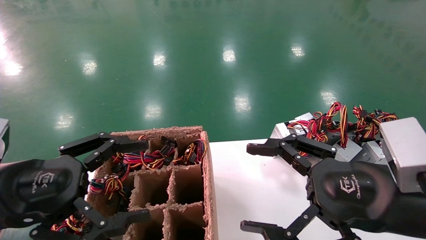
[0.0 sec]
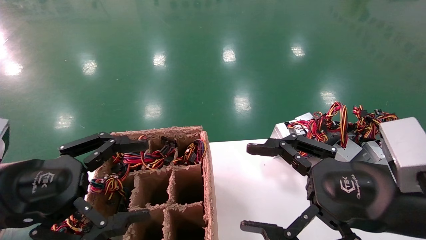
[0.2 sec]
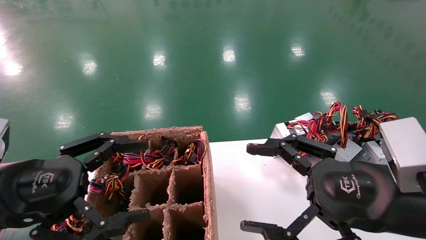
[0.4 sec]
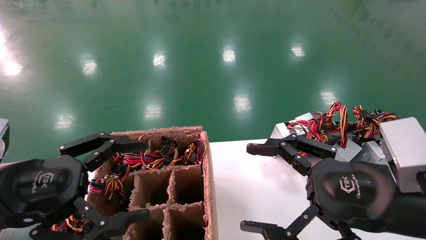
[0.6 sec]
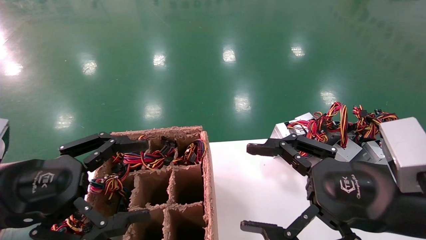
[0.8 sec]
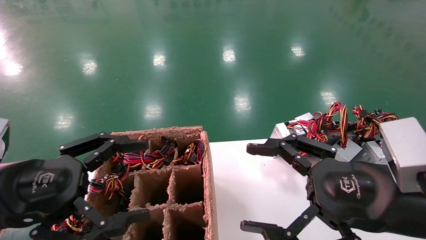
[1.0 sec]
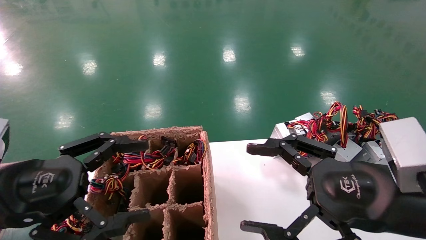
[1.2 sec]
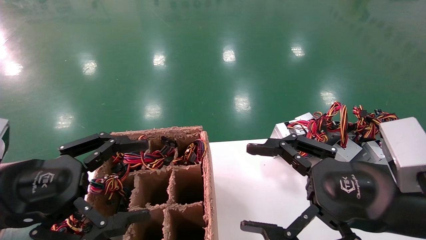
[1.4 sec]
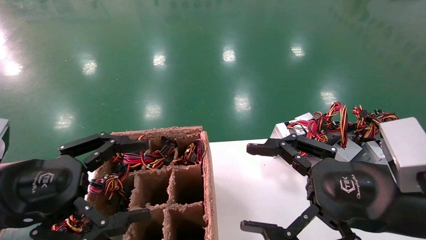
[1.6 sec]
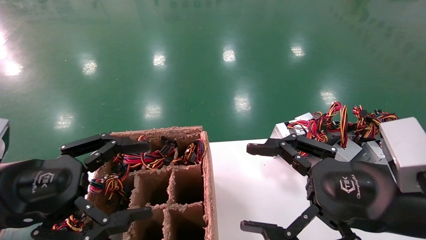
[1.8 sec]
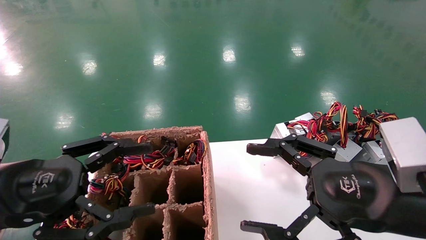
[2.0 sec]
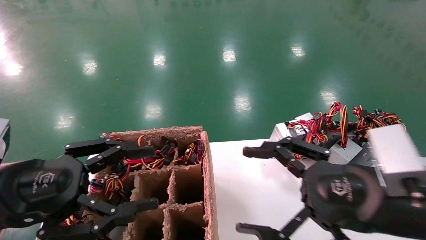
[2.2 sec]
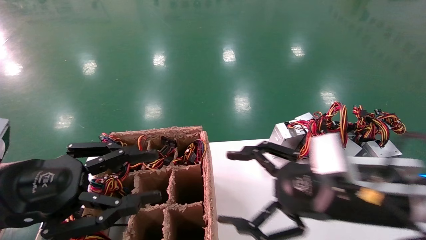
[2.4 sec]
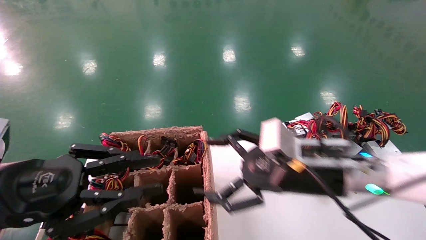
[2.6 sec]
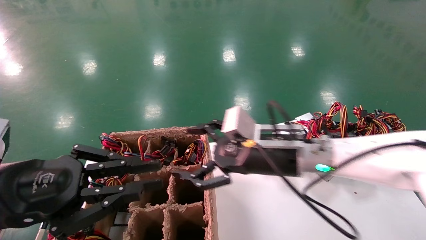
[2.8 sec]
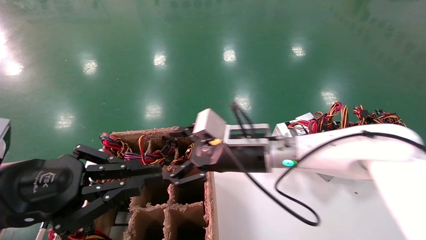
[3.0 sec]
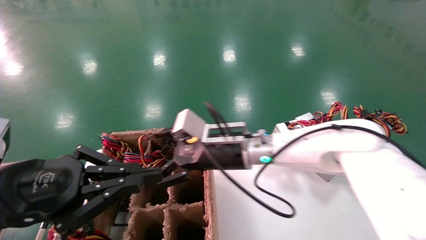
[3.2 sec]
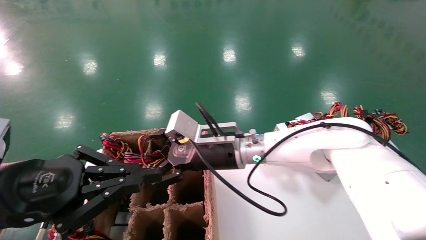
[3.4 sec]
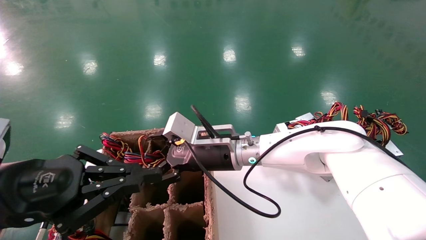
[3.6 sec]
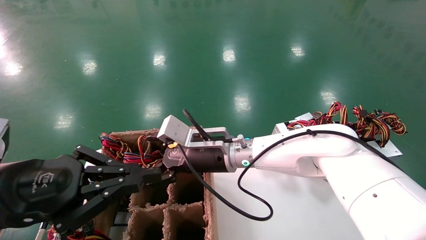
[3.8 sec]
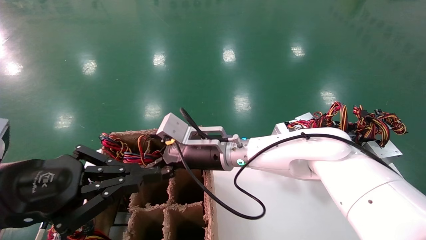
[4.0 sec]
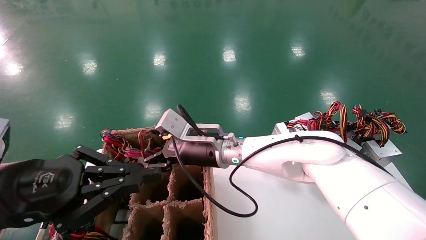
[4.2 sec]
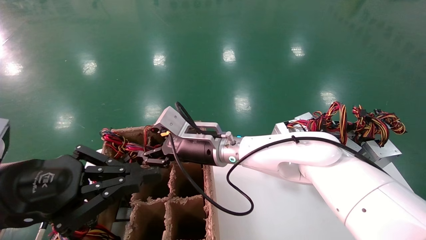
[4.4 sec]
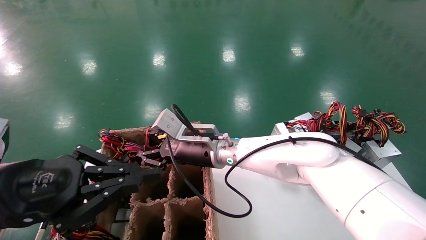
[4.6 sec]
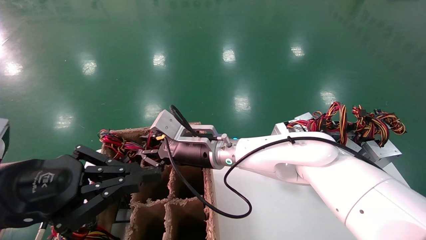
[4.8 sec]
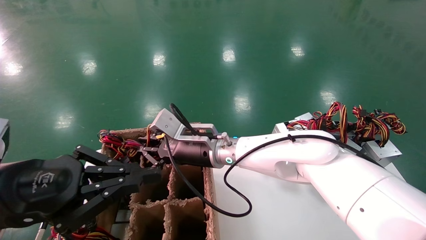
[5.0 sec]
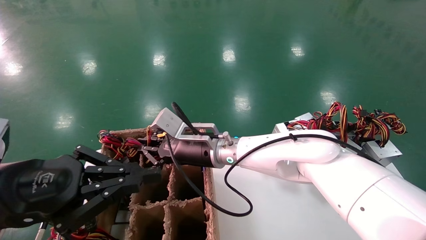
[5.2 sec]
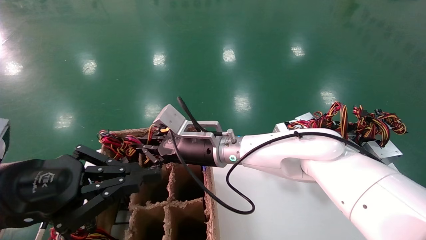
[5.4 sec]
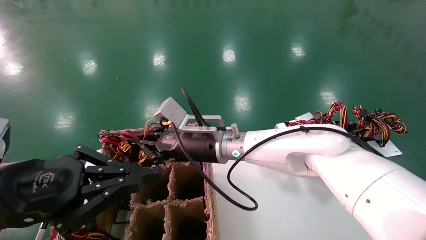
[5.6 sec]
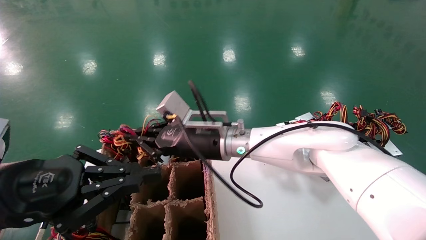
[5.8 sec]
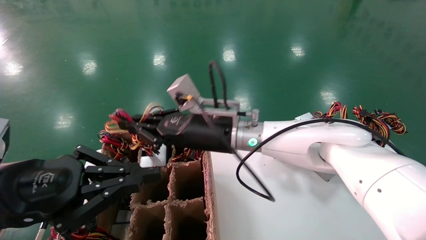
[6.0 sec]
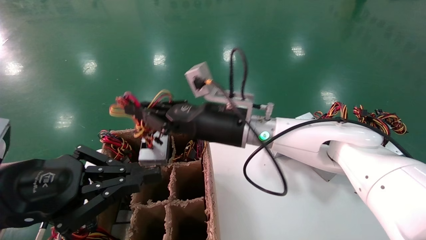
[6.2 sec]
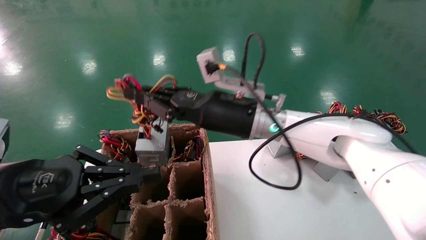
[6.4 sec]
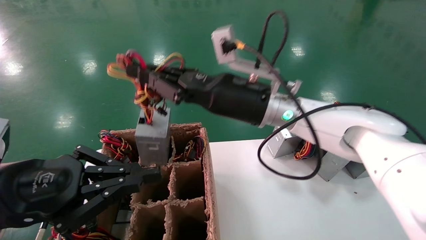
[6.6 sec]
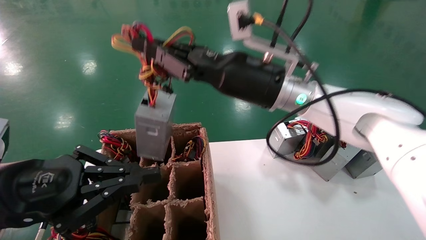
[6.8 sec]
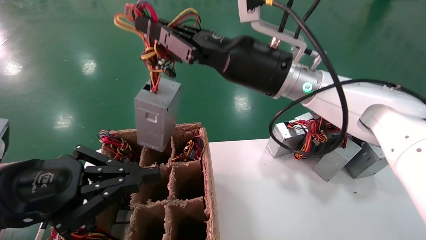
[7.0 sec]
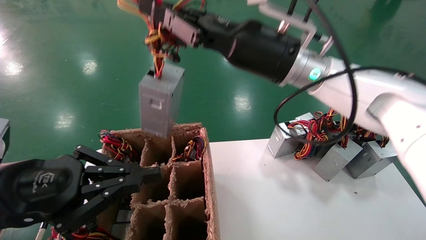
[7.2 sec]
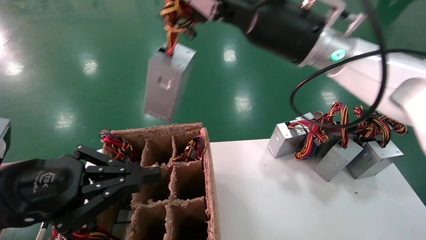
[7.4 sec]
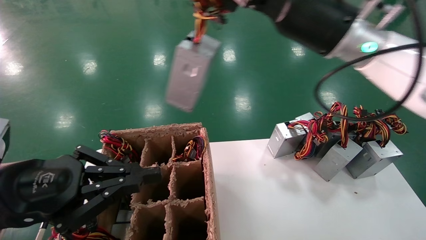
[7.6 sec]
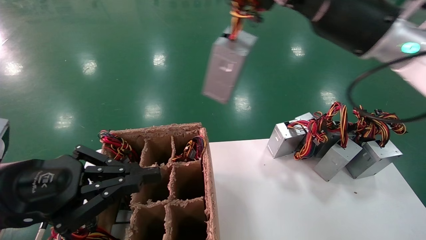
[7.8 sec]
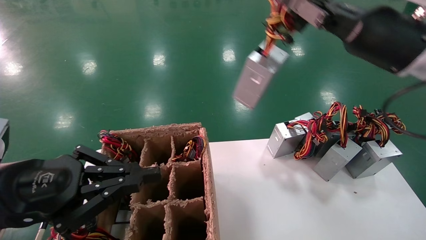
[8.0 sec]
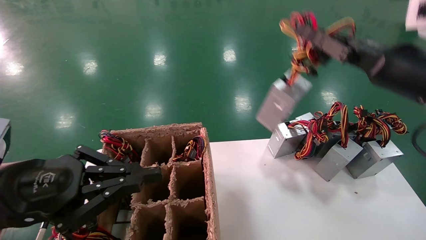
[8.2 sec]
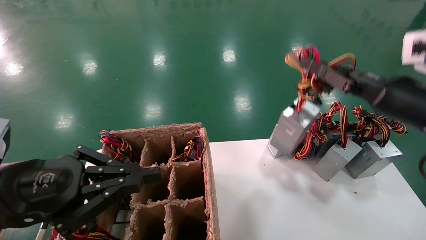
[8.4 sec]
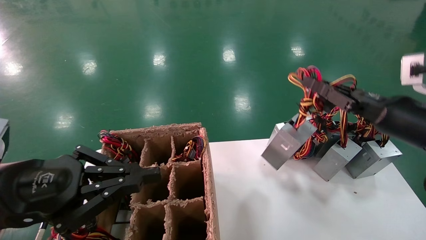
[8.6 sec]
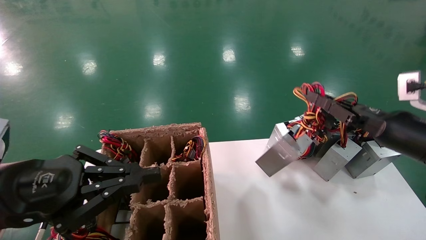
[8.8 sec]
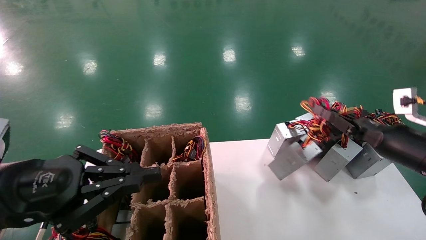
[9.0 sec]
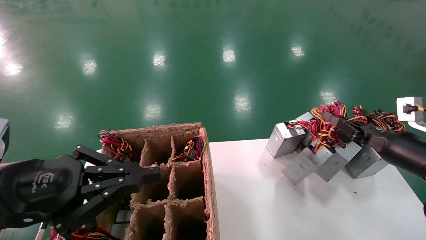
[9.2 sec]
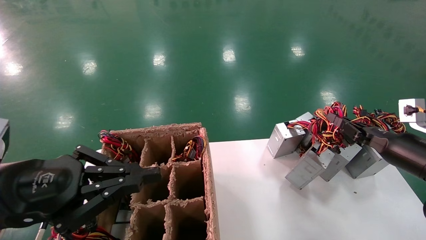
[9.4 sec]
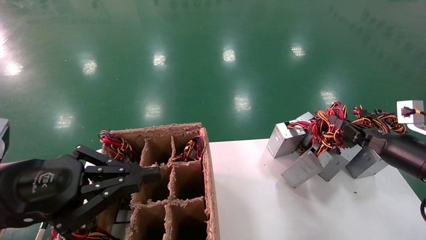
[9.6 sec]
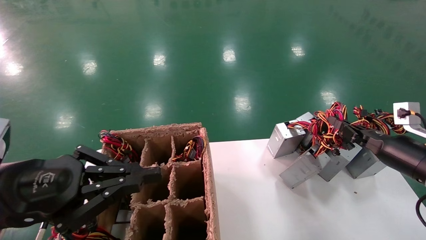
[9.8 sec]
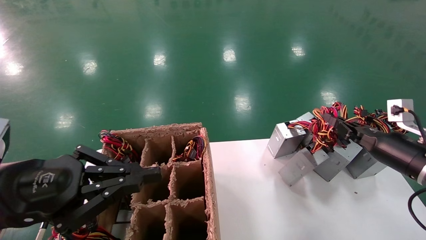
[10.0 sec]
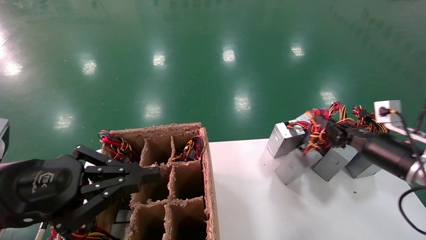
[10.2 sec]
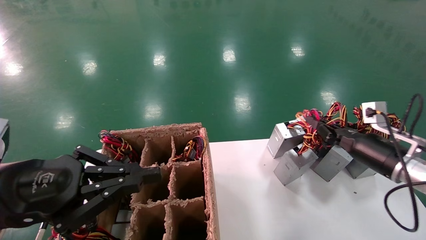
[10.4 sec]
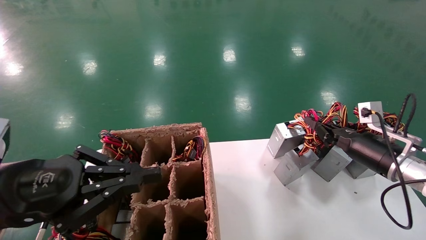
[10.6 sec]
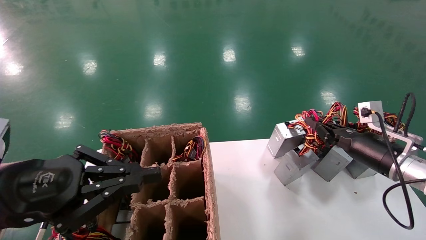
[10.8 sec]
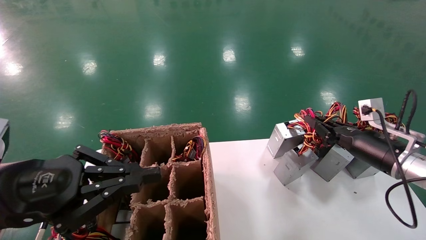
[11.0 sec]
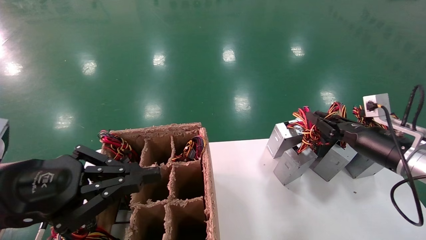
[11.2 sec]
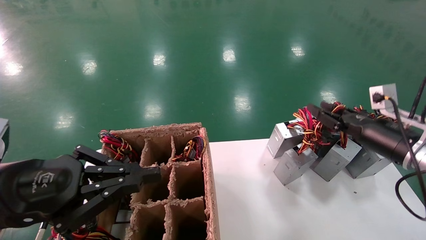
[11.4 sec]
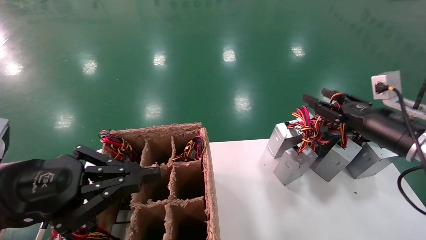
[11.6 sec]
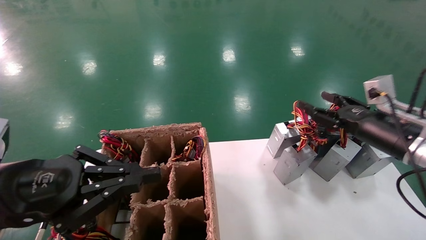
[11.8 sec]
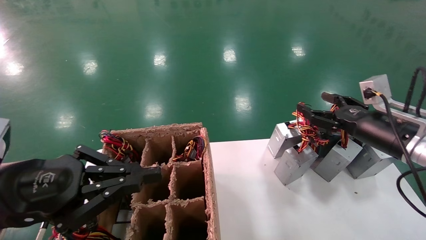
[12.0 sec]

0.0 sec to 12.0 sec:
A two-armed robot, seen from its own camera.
Step, 2.4 sec to 5.2 sec: Grab the main unit power supply from the containment box.
Step, 5.4 sec to 11.0 sec: Place the main unit power supply in the designated area.
0.0 sec to 1.6 sec: The two grippers keep their place.
1.6 sec to 3.0 sec: The right gripper shifts roughly 25 cm forward and to the left; the left gripper closes up.
3.0 sec to 4.4 sec: The right gripper is displaced to the left by about 10 cm.
4.4 sec to 6.0 sec: The right gripper heads upward, covering about 5 cm, and closes.
6.0 sec to 7.6 sec: The right gripper is displaced upward and to the right by approximately 25 cm.
7.6 sec to 9.0 sec: The right gripper travels to the right and downward by some 30 cm.
9.0 sec to 10.4 sec: The right gripper changes place by approximately 5 cm.
10.4 sec to 12.0 sec: The right gripper moves upward, roughly 5 cm, and opens its fingers.

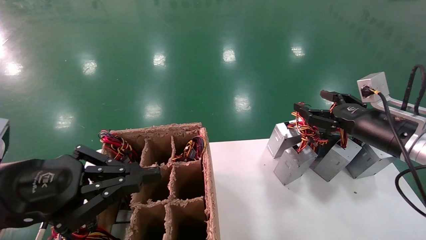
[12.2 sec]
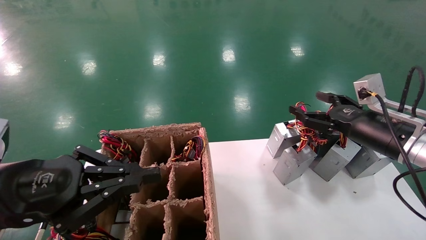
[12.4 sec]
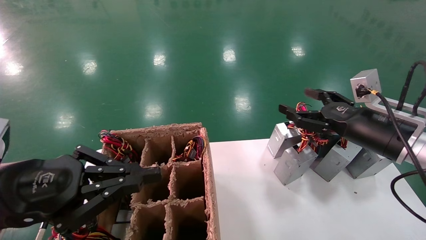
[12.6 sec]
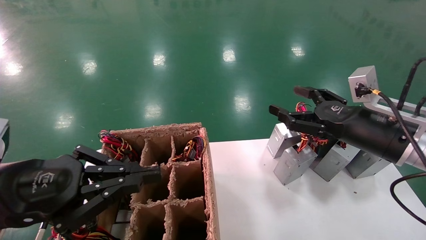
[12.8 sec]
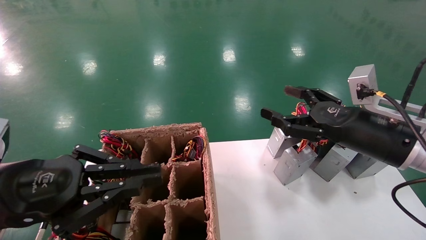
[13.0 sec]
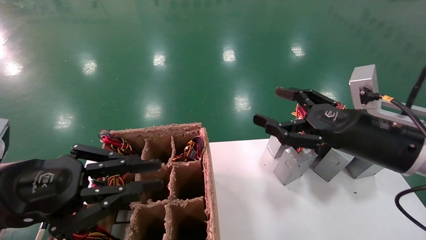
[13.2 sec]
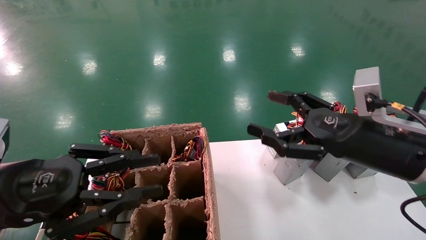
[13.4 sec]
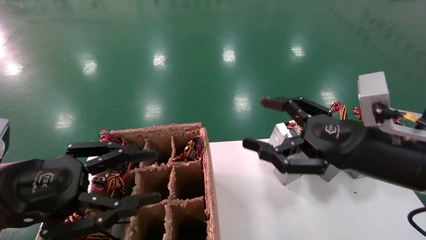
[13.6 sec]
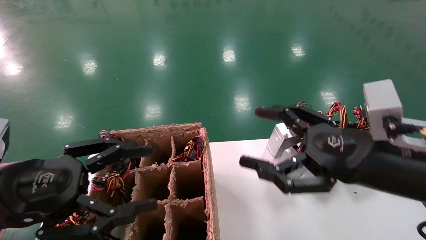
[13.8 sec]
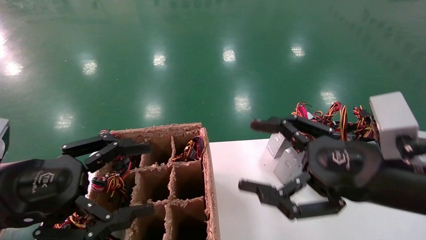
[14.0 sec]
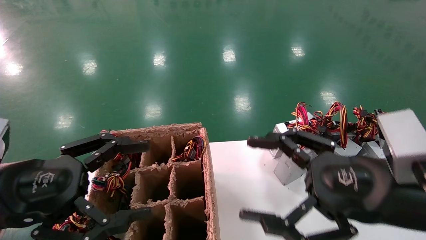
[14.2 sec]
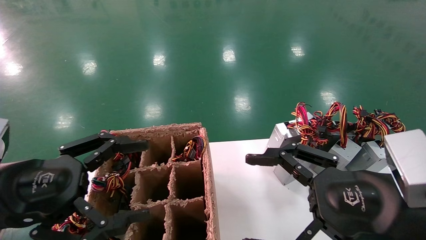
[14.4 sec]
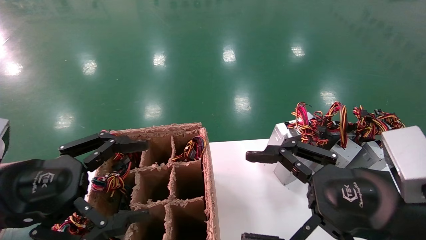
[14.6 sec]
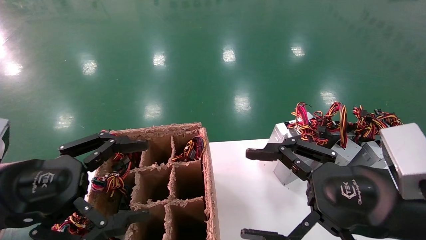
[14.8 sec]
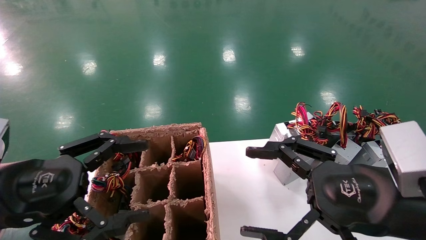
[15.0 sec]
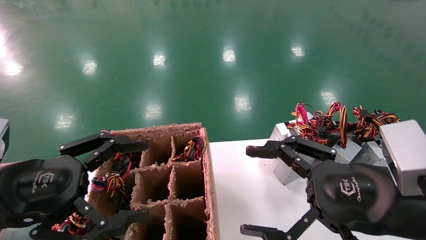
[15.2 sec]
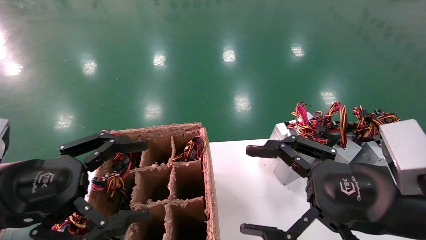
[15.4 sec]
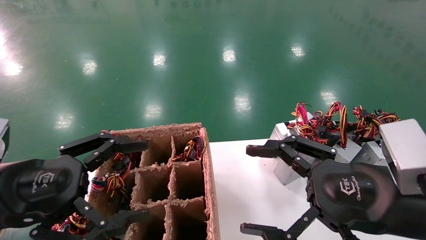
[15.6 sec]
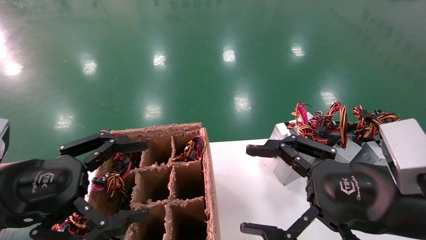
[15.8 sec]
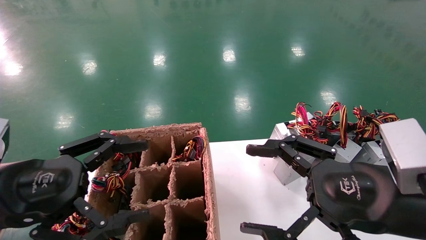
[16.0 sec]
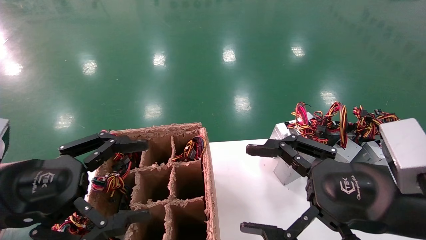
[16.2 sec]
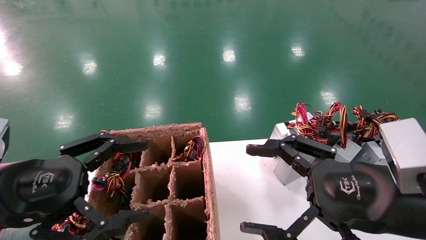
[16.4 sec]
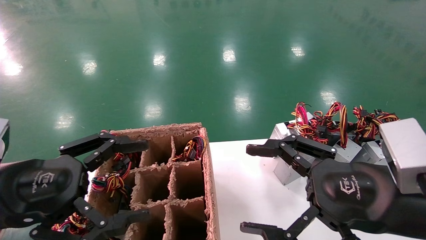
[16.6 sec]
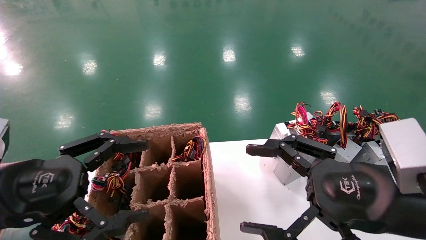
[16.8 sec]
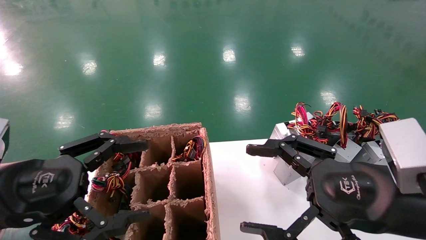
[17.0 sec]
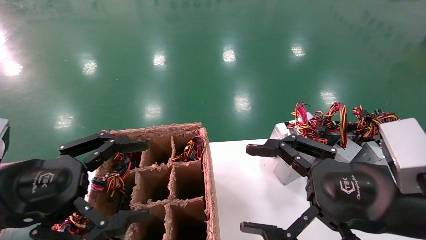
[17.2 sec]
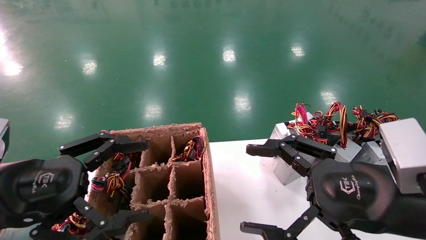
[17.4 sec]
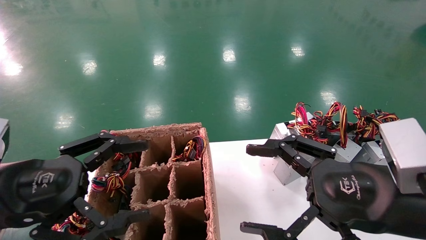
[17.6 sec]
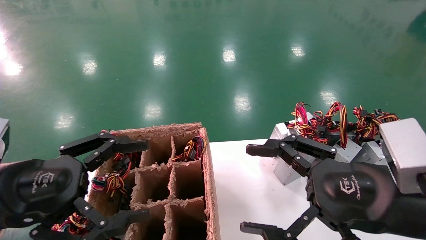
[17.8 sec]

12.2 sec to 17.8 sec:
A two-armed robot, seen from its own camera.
12.2 sec to 13.6 sec: The left gripper opens its fingers. Meanwhile the right gripper goes approximately 15 cm backward and to the left.
13.6 sec to 15.0 sec: The right gripper moves backward, roughly 5 cm. The left gripper opens up.
15.0 sec to 17.8 sec: The two grippers keep their place.
